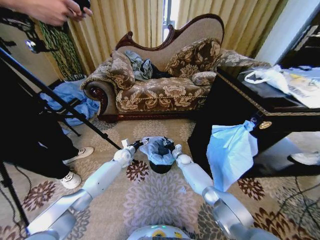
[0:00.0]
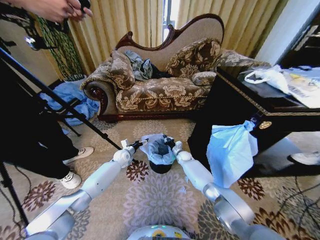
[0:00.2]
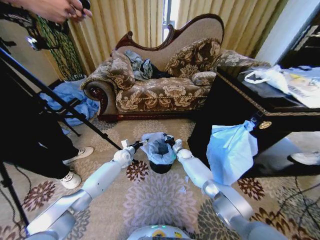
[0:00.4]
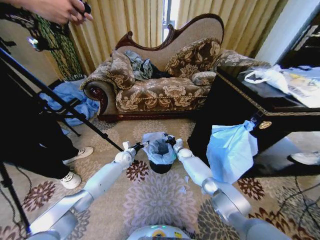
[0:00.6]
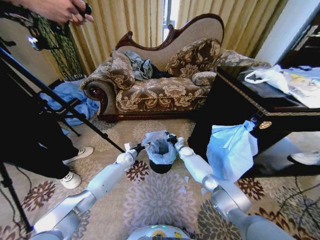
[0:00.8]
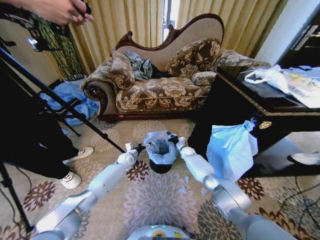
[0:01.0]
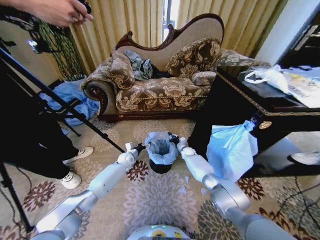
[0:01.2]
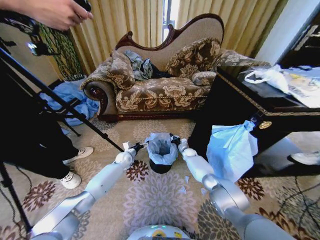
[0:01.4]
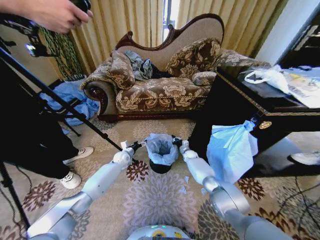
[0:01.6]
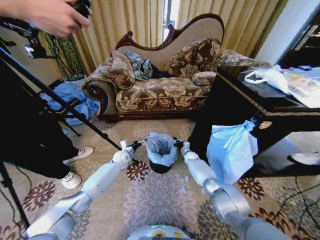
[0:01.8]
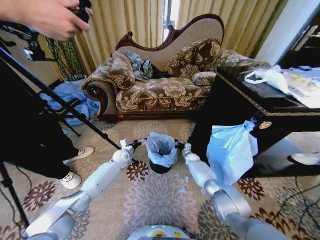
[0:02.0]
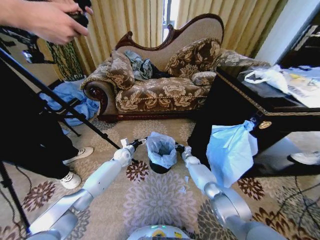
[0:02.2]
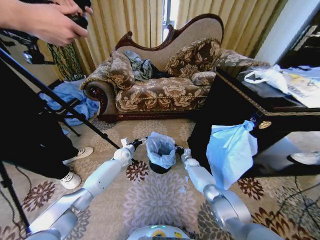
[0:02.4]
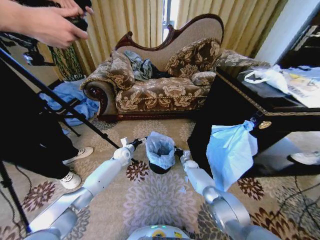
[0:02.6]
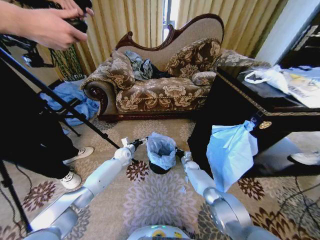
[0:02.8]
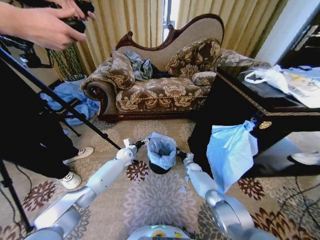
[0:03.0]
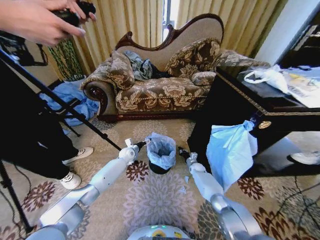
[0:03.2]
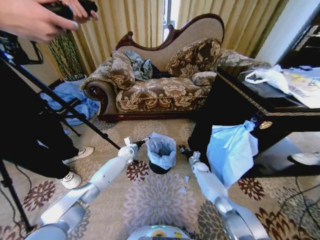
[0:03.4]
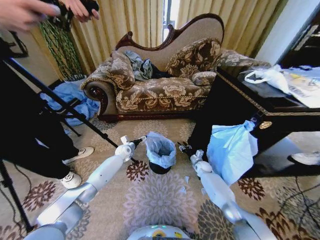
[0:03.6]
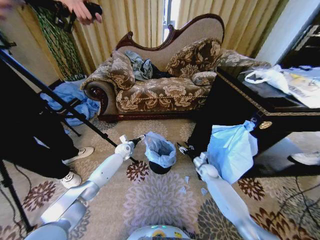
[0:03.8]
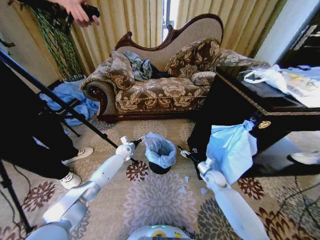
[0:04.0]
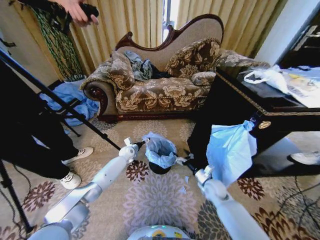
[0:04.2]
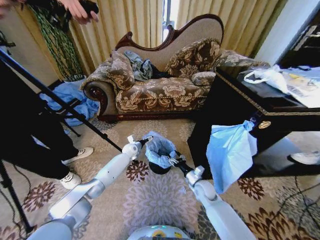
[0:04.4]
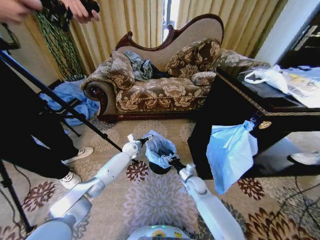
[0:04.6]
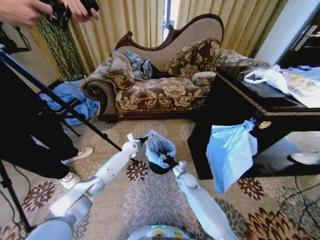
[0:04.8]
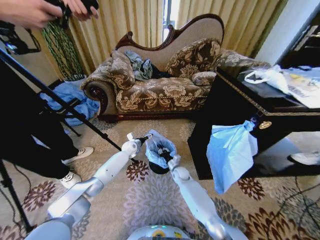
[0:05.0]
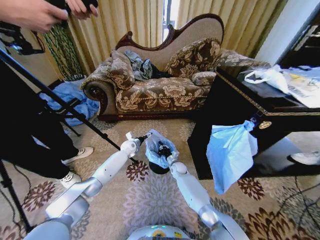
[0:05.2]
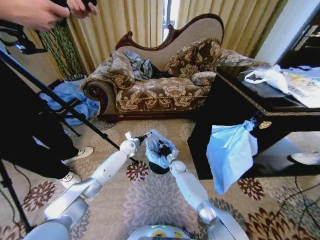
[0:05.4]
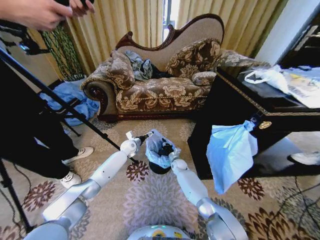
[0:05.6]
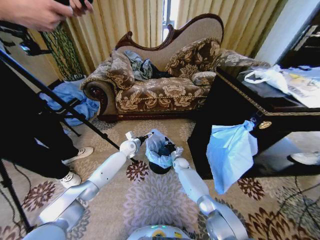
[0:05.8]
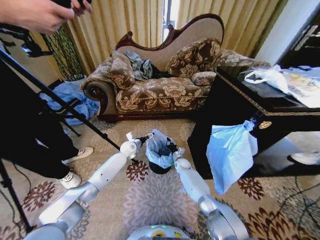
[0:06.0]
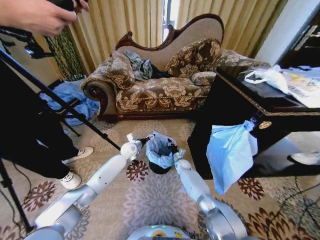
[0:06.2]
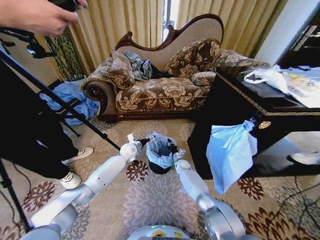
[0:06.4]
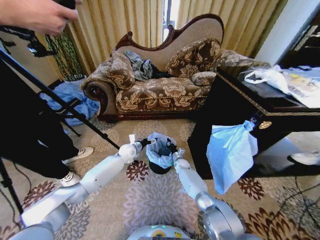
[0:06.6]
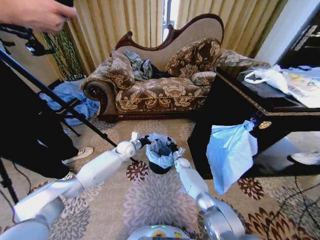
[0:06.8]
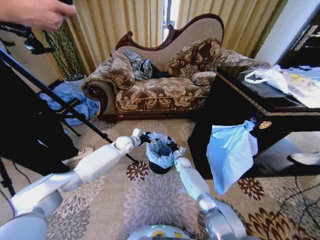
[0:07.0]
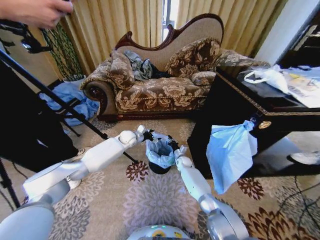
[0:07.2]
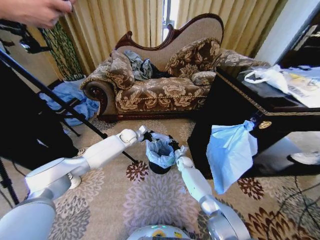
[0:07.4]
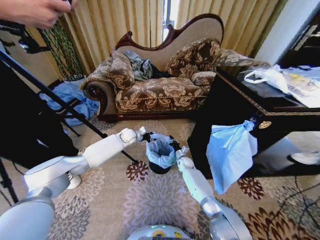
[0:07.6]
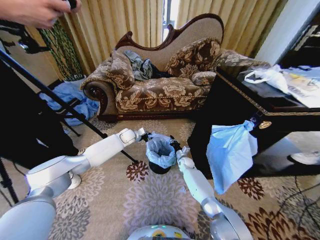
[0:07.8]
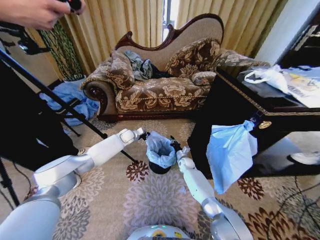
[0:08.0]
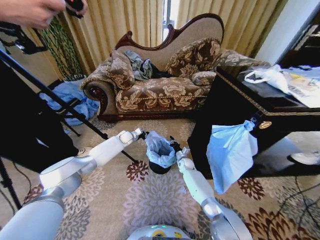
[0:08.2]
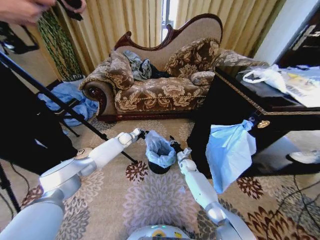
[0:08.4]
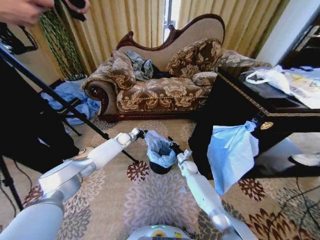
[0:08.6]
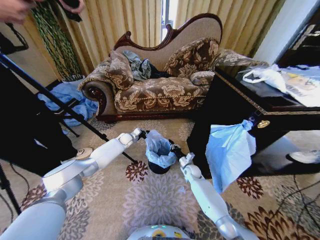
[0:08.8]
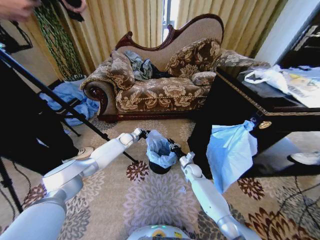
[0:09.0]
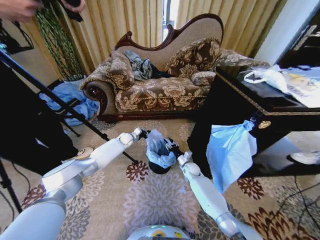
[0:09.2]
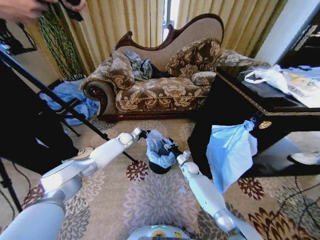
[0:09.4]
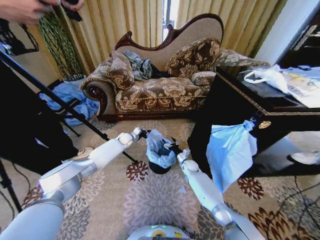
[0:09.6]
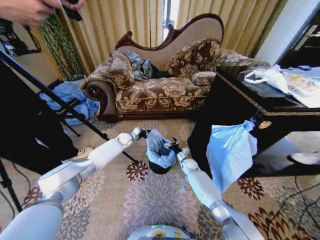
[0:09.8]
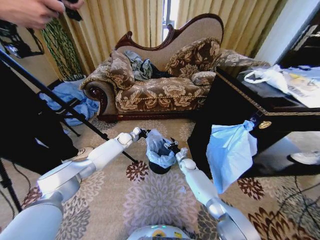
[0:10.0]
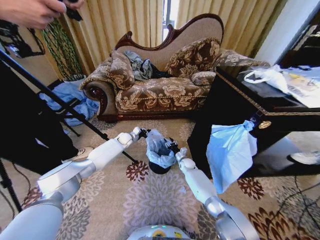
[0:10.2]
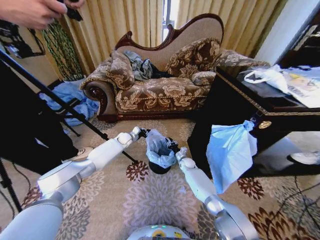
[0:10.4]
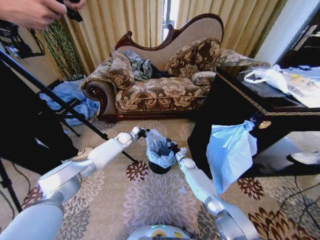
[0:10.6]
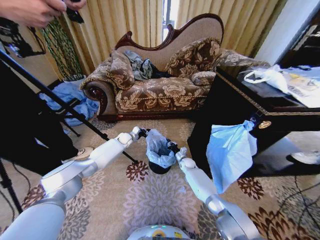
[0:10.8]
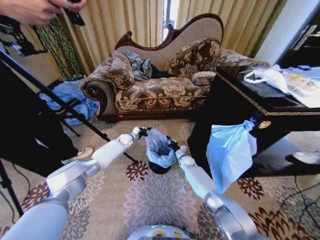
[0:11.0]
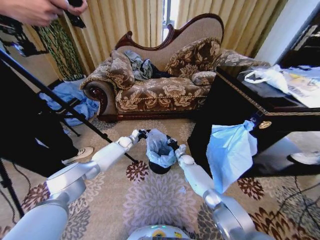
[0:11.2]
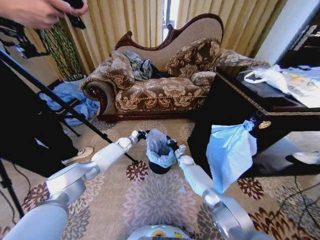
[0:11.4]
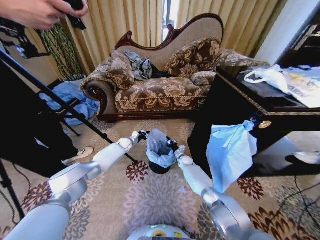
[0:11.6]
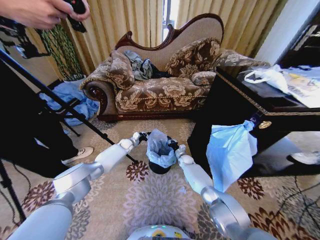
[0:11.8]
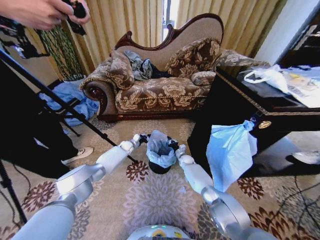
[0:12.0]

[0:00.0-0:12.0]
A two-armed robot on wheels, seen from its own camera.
Task of the whole recording: Place a garbage bag over the trash bin.
0.0 to 1.6 s: The right gripper is displaced to the right by roughly 5 cm.
1.6 to 3.0 s: The right gripper moves downward and backward, some 10 cm.
3.0 to 4.4 s: The right gripper travels backward and upward by about 20 cm, and opens.
4.4 to 6.0 s: The right gripper goes approximately 20 cm forward and to the left, and closes up.
6.0 to 7.6 s: The left gripper moves upward, some 5 cm, and closes up.
7.6 to 9.0 s: The right gripper travels backward by approximately 5 cm. Meanwhile the left gripper is displaced downward by approximately 5 cm, and closes up.
9.0 to 10.4 s: The right gripper goes roughly 5 cm forward, and opens, then closes once more.
10.4 to 12.0 s: The left gripper moves downward, roughly 10 cm.

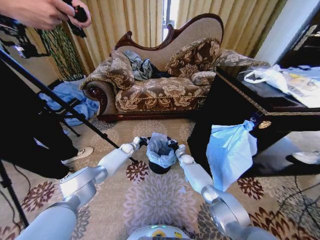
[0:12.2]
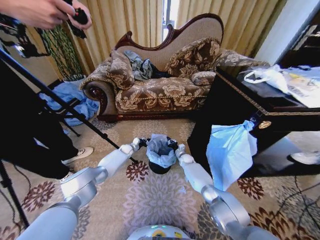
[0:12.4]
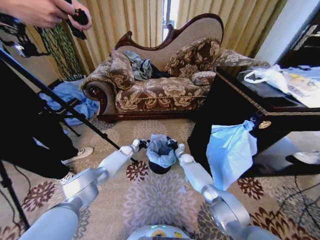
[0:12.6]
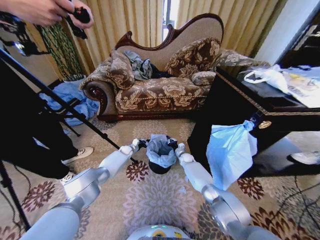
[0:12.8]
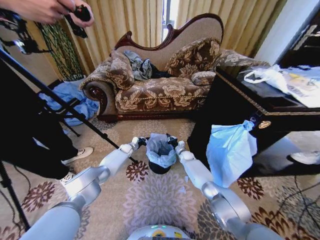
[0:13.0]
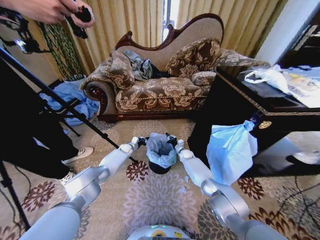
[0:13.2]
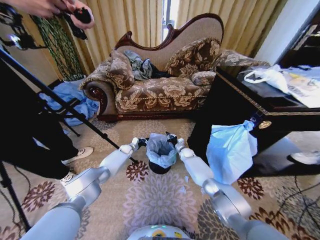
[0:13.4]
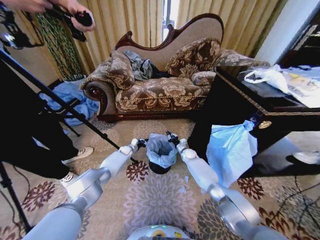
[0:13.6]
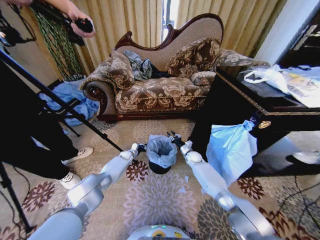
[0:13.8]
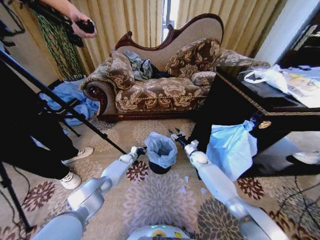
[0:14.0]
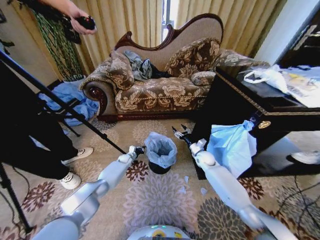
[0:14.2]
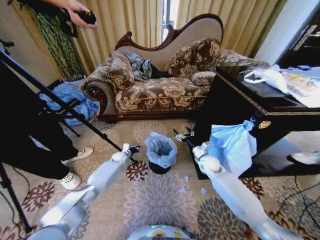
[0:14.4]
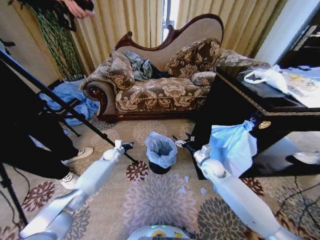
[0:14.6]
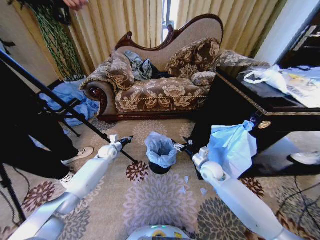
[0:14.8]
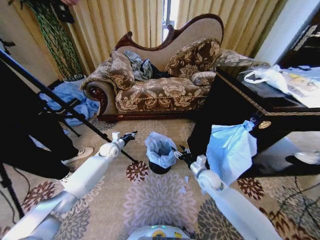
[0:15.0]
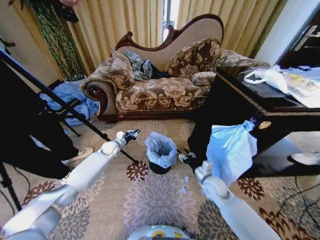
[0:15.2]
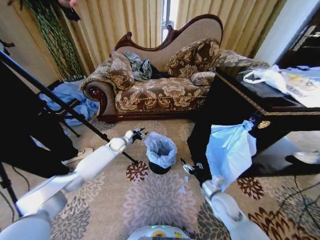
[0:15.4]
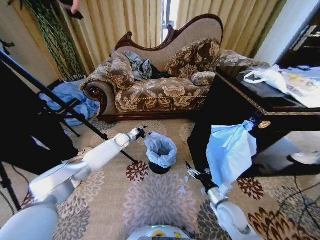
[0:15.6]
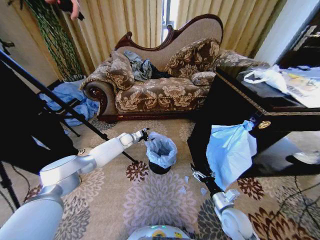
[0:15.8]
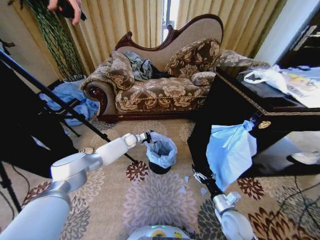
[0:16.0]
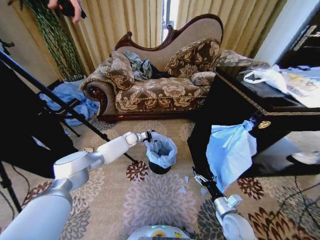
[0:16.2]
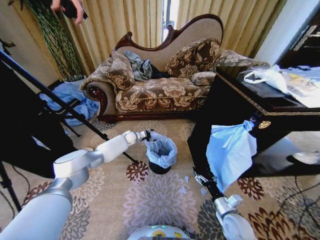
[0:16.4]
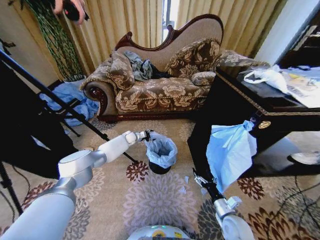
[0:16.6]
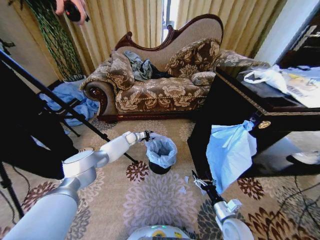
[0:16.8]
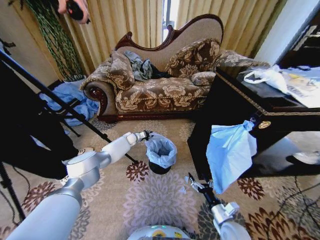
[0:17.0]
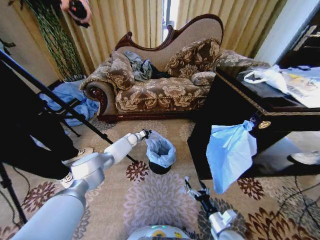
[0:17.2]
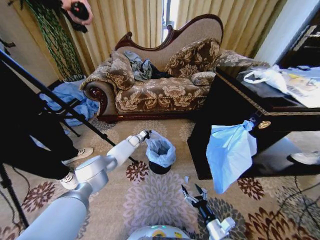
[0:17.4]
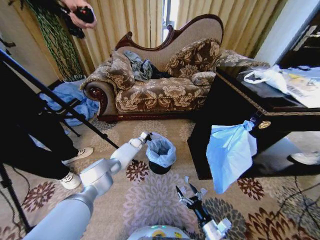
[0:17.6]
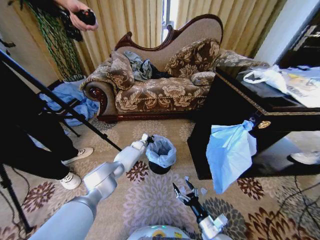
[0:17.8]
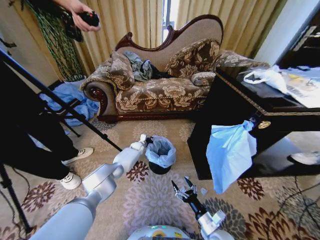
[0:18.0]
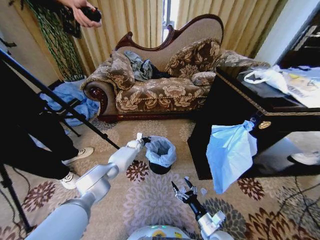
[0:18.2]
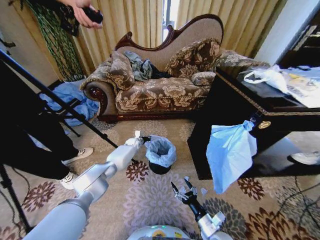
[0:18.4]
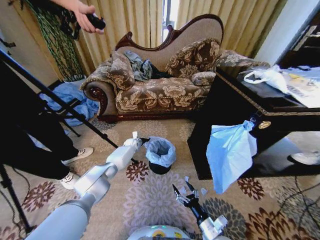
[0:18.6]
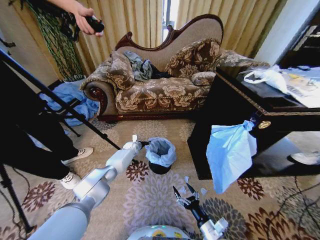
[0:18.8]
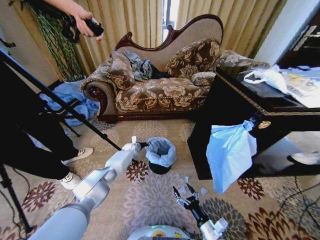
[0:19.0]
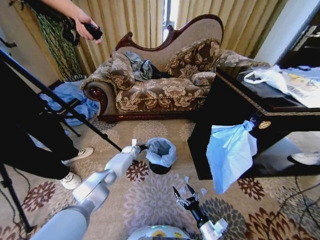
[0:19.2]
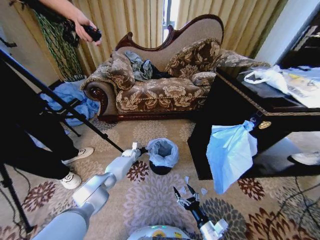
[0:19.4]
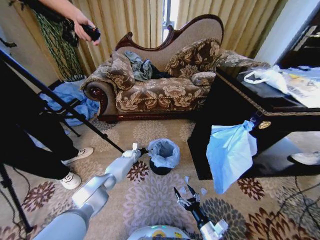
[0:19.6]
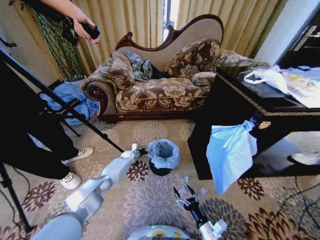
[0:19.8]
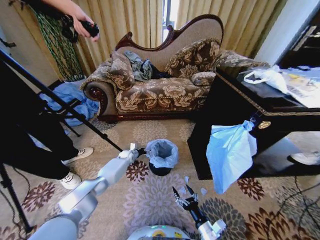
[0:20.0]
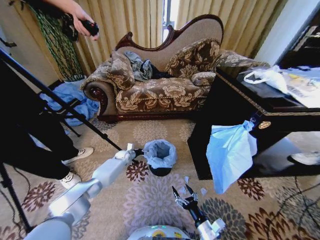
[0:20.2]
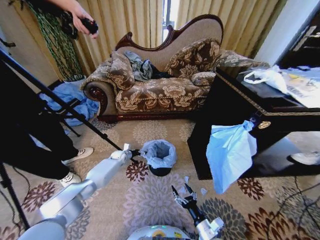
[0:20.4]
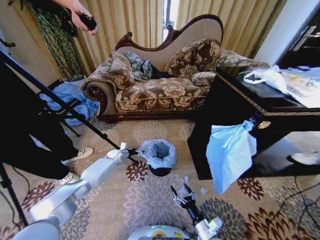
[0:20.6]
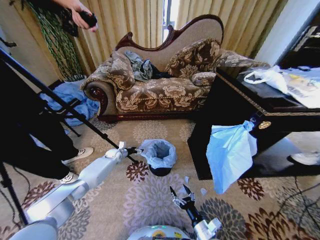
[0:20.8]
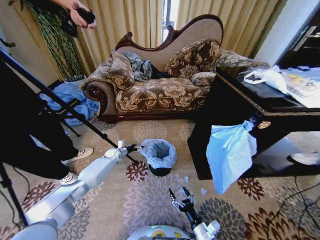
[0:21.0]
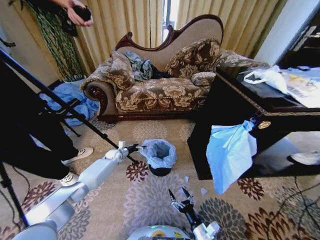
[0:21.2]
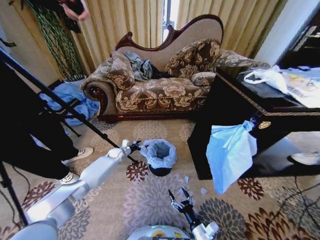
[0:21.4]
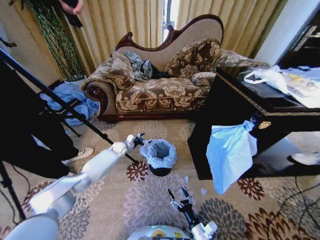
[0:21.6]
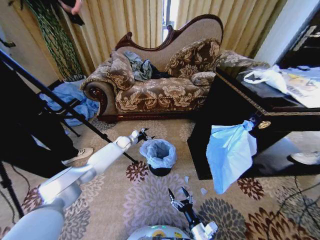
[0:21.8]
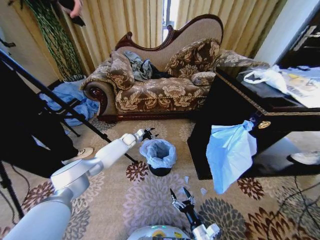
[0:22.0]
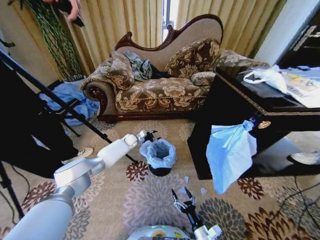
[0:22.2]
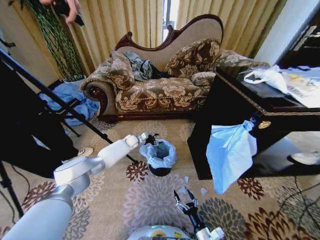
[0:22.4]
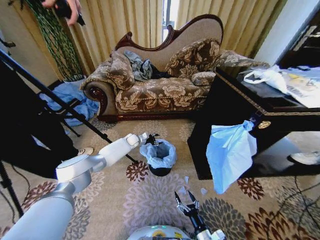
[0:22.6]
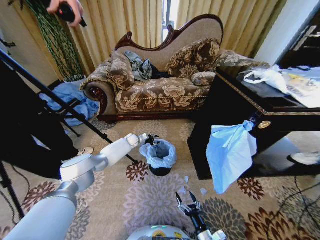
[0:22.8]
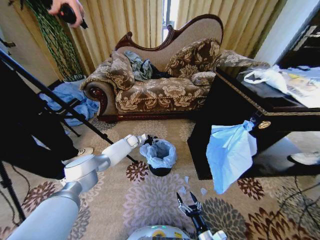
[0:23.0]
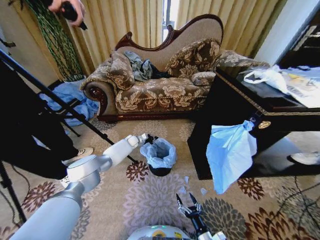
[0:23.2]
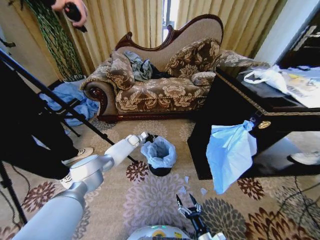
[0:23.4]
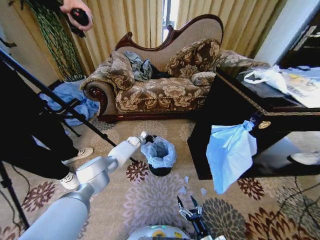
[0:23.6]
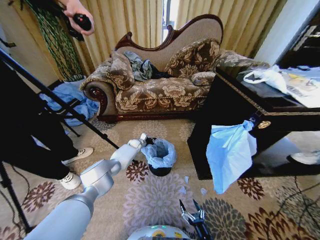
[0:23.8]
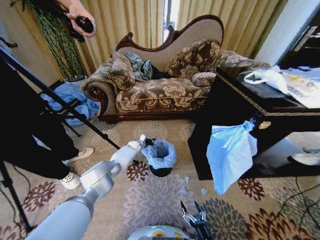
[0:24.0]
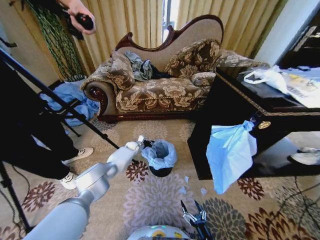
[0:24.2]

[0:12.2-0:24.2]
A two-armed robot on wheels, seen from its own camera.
Task of the whole recording: Place a garbage bag over the trash bin.
12.2 to 13.8 s: The left gripper is displaced downward by roughly 5 cm. Meanwhile the right gripper moves upward, roughly 5 cm.
13.8 to 15.2 s: The right gripper heads backward, covering approximately 20 cm, and opens, then closes once more. The left gripper shifts about 15 cm upward.
15.2 to 16.6 s: The left gripper is displaced forward and to the right by some 15 cm, and opens up. The right gripper is displaced backward and downward by approximately 15 cm, and opens its fingers.
16.6 to 18.2 s: The left gripper goes some 5 cm downward, and closes up. Meanwhile the right gripper goes roughly 5 cm to the left.
18.2 to 19.8 s: The left gripper goes about 5 cm downward, and opens up.
19.8 to 21.2 s: The left gripper is displaced to the left by some 10 cm.
21.2 to 22.6 s: The left gripper shifts roughly 15 cm to the right, forward and upward.
22.6 to 24.2 s: The left gripper shifts about 5 cm downward, and closes up.
